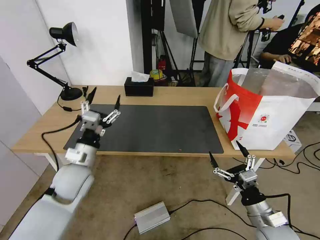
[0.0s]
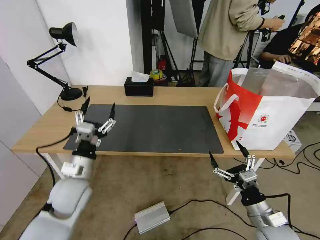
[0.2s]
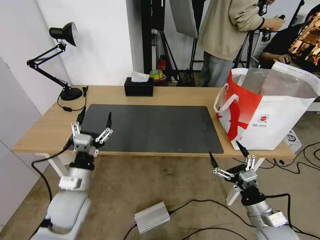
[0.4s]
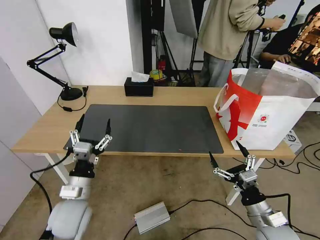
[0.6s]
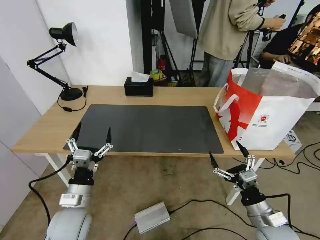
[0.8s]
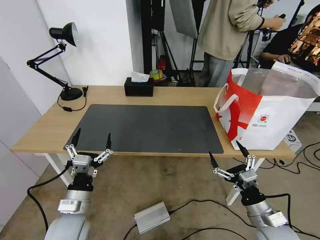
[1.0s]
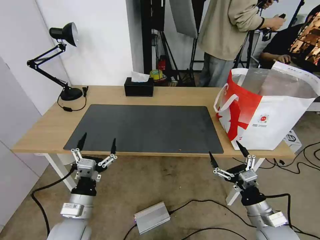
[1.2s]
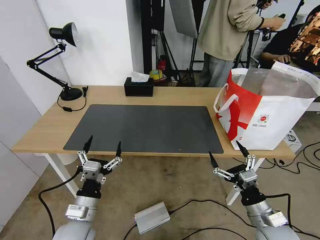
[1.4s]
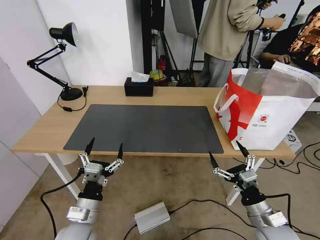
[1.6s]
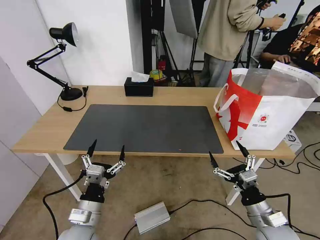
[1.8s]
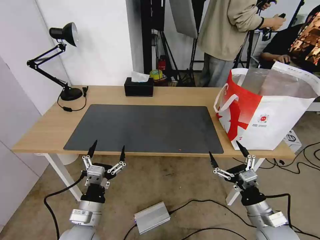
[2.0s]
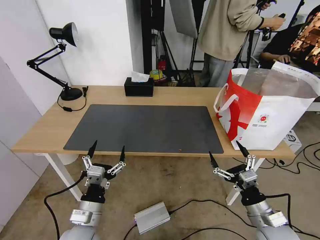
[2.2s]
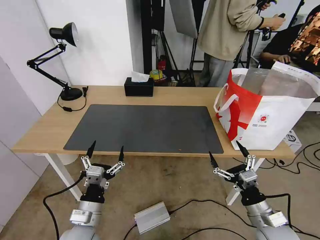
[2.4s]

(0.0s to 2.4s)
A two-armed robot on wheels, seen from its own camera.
Task of the whole recording: Pick up the trash from the table and place it into the takeout bag.
0.0s - 1.2s: The left gripper heads backward and downward, covering some 15 cm.
1.2s - 2.4s: The grippers move only a little.

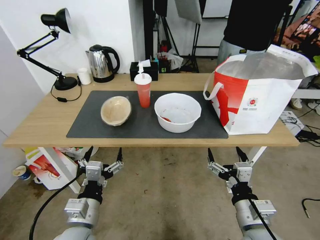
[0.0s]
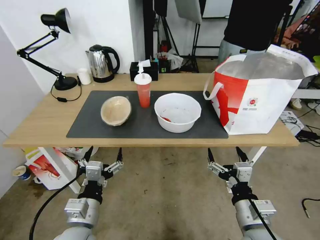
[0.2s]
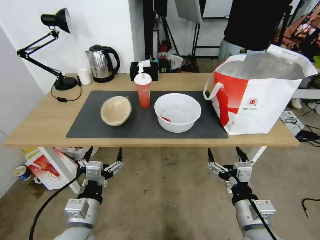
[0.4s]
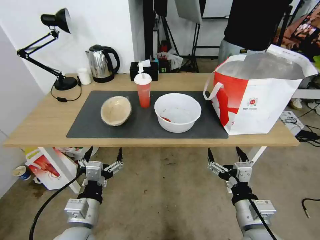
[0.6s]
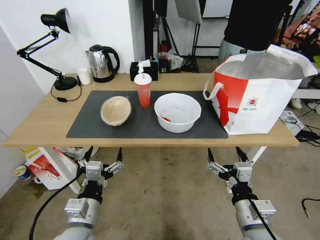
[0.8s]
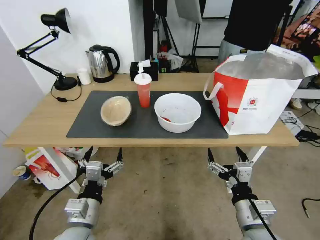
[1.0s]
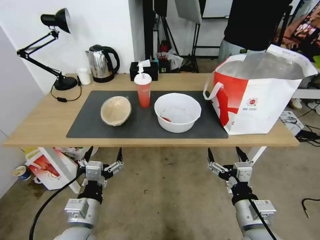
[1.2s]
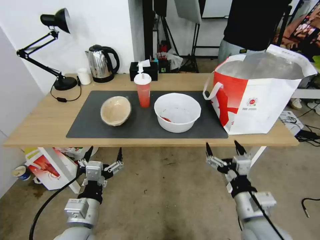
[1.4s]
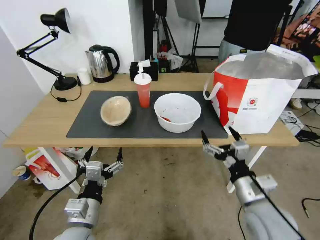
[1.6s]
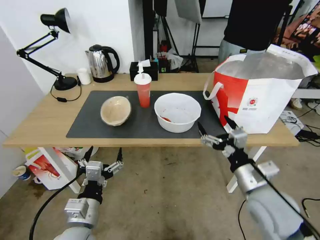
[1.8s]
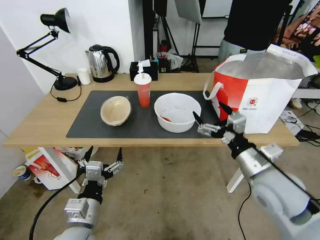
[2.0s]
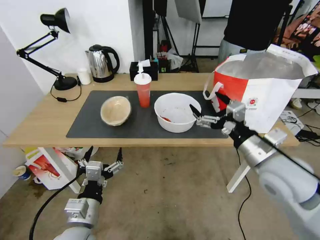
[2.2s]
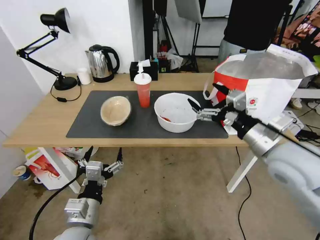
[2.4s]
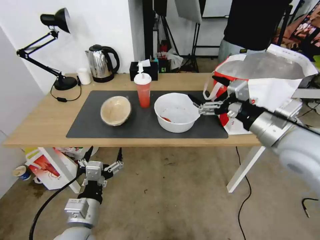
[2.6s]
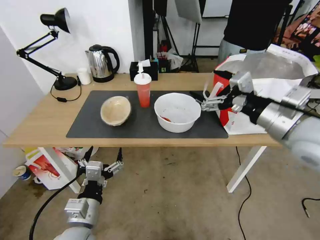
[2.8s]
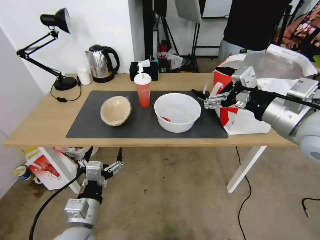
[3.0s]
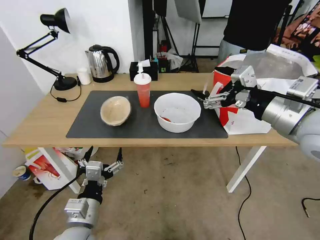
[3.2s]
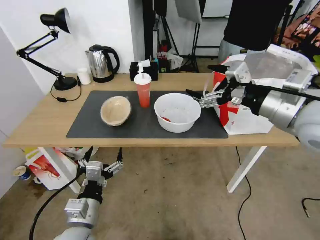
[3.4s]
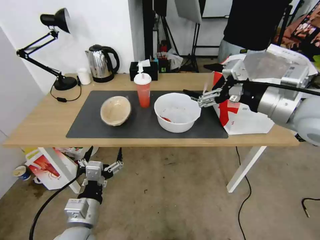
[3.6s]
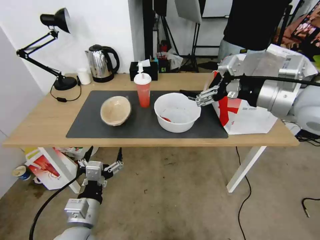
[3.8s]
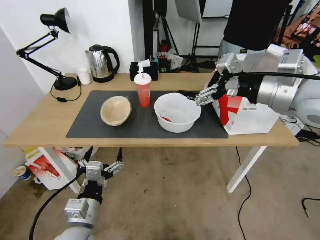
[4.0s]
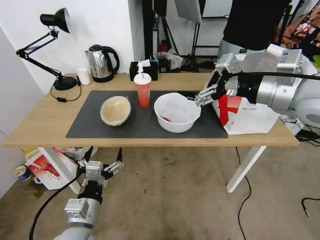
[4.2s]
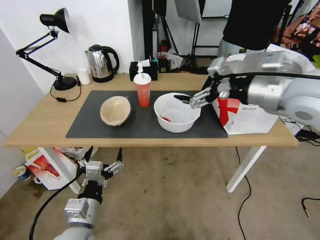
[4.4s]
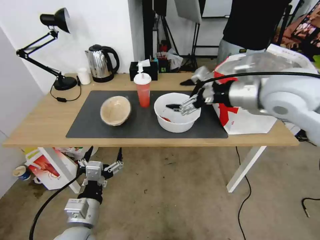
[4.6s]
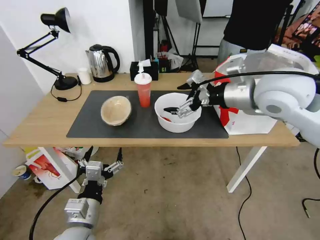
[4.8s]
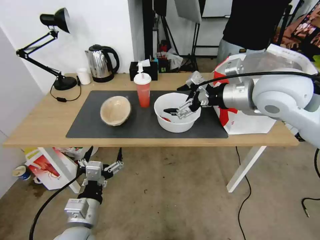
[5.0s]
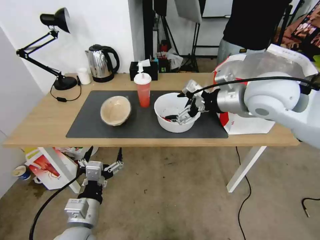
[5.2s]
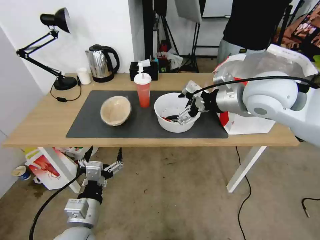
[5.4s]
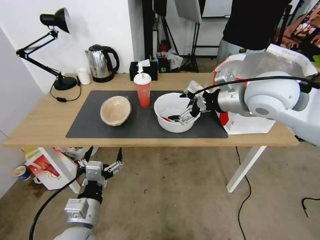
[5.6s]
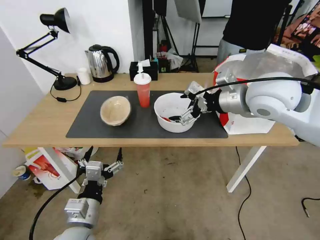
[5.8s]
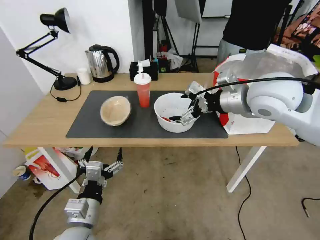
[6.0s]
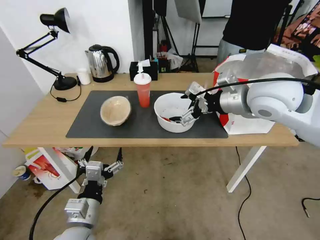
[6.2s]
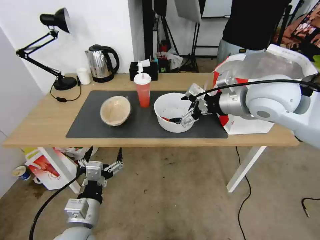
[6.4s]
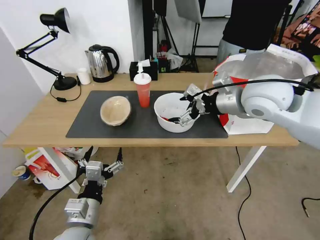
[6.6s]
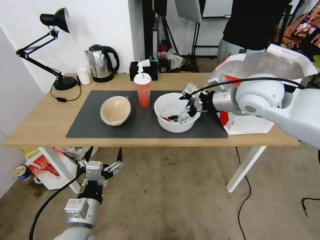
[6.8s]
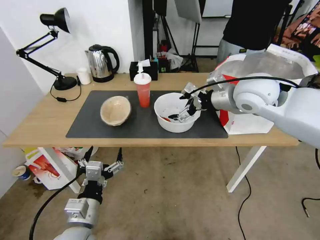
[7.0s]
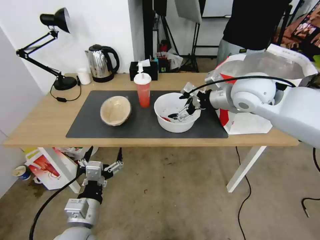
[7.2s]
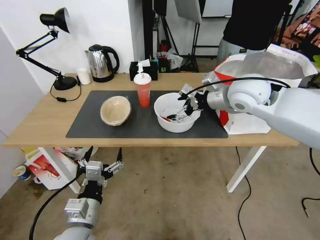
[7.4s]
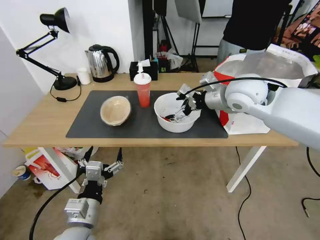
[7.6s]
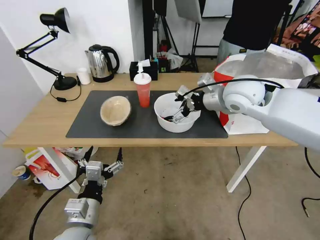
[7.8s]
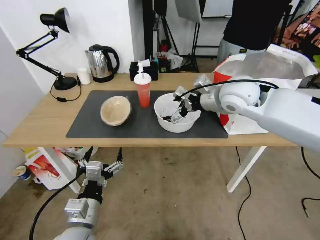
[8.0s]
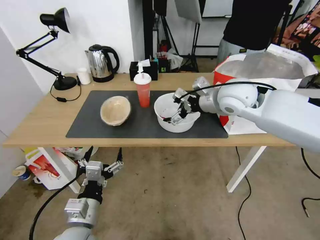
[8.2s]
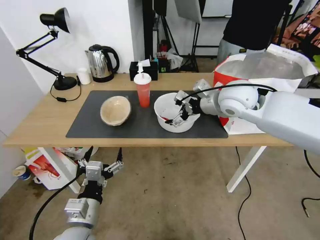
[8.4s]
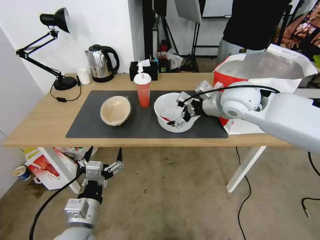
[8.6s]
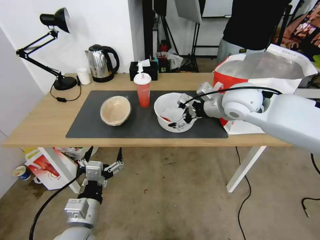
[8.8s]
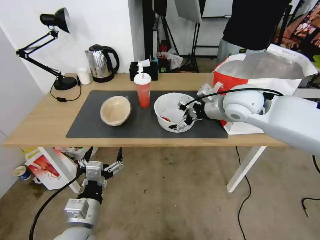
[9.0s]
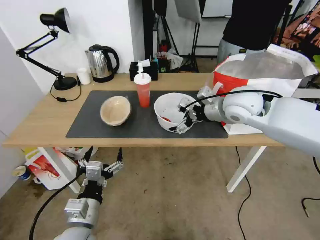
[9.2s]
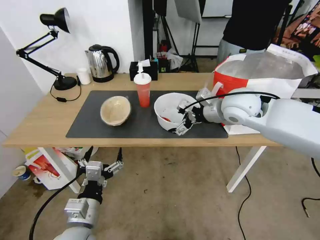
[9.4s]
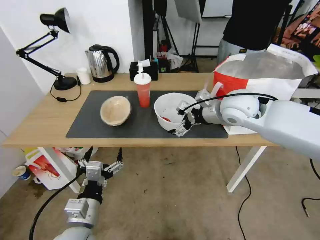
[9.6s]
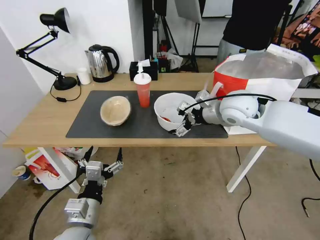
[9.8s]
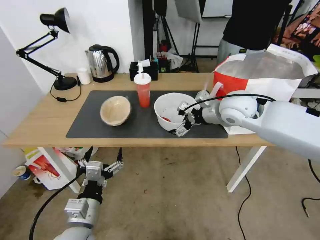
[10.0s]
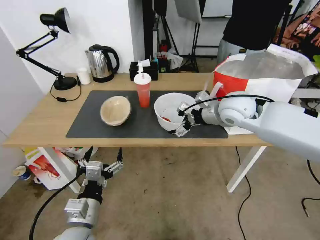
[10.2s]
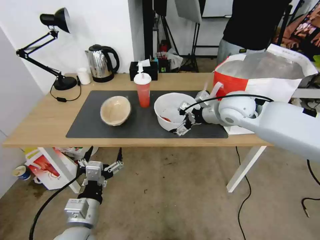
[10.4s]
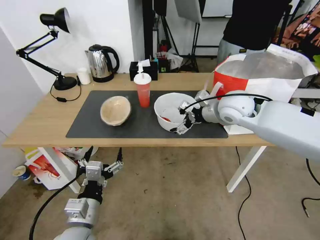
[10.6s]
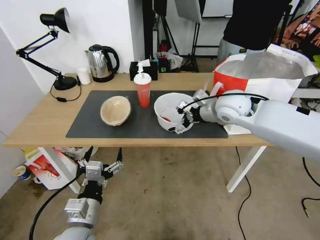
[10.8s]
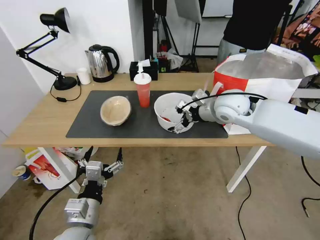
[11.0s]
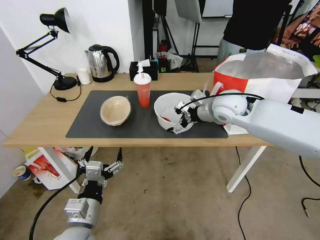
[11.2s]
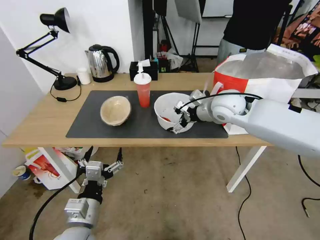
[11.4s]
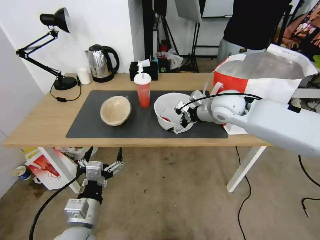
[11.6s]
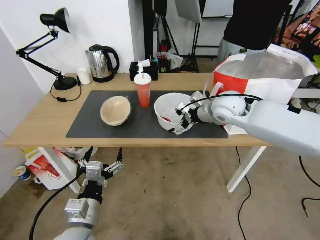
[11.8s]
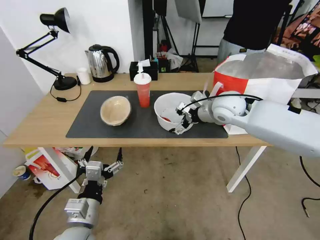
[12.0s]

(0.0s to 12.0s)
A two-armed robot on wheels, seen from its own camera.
Task of the whole recording: Pick up the trash from the table and place it into the takeout bag.
1.6s - 3.0s: The right gripper is displaced upward and forward by some 25 cm.
3.0s - 4.4s: The right gripper shifts some 5 cm forward.
4.4s - 6.0s: The right gripper ends up about 5 cm from where it was.
6.0s - 7.6s: The right gripper is displaced forward by roughly 5 cm.
7.6s - 10.4s: There are only small adjustments of the grippers.
10.4s - 12.0s: The grippers move only a little.

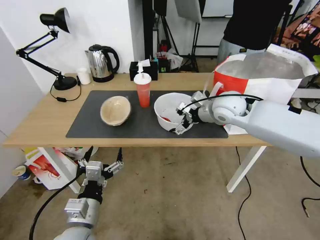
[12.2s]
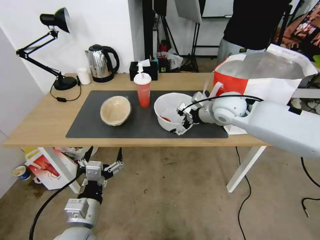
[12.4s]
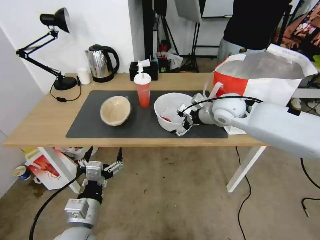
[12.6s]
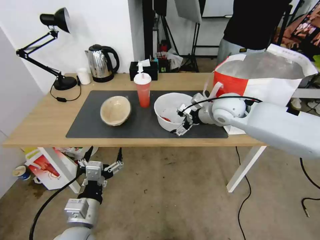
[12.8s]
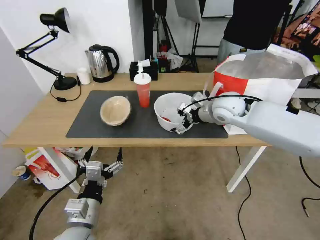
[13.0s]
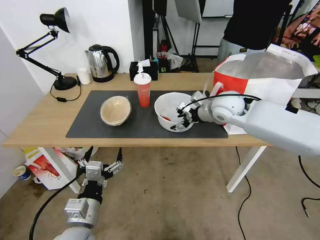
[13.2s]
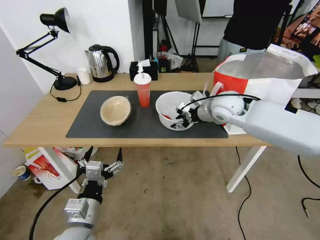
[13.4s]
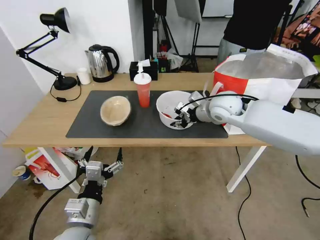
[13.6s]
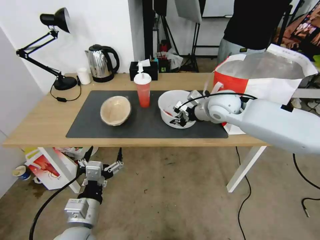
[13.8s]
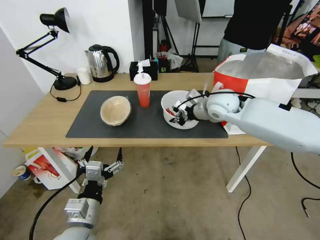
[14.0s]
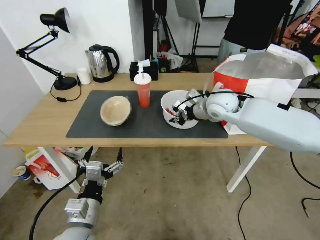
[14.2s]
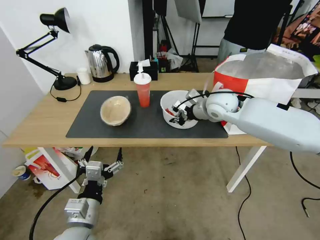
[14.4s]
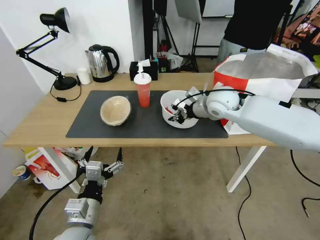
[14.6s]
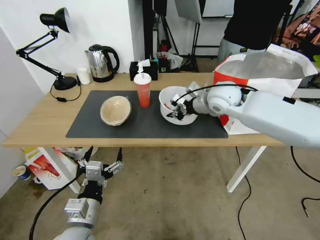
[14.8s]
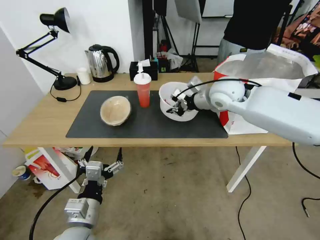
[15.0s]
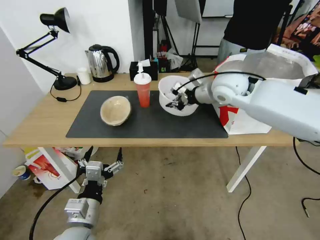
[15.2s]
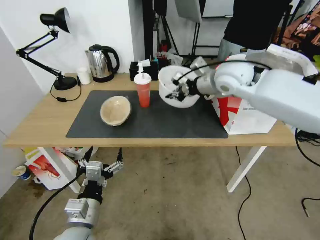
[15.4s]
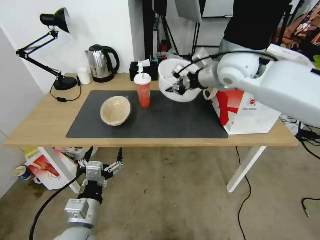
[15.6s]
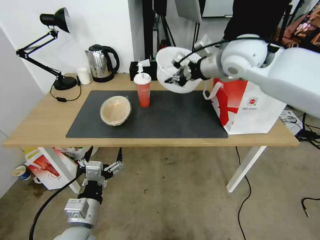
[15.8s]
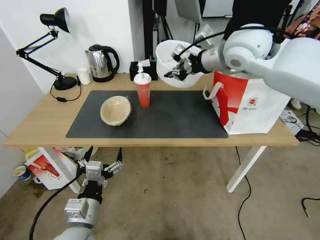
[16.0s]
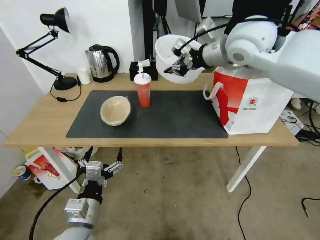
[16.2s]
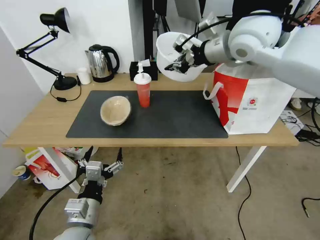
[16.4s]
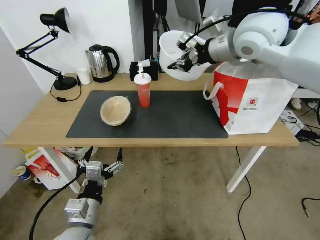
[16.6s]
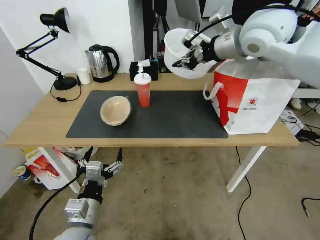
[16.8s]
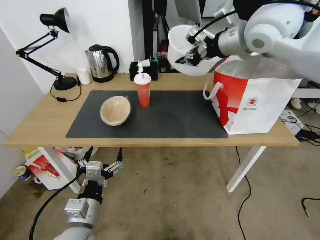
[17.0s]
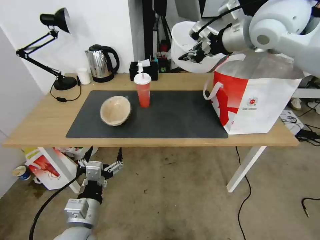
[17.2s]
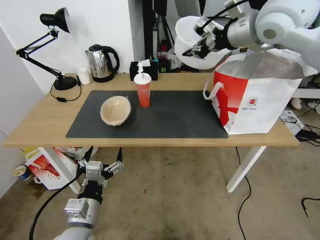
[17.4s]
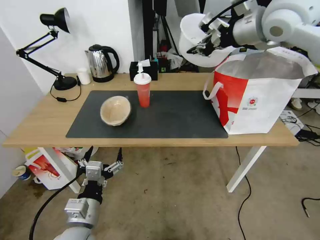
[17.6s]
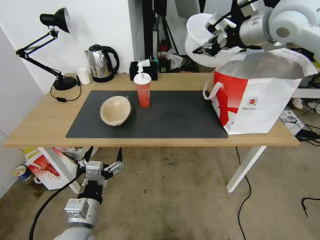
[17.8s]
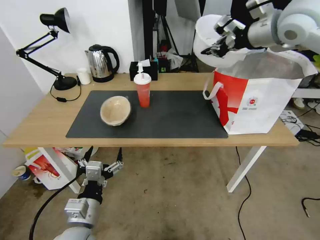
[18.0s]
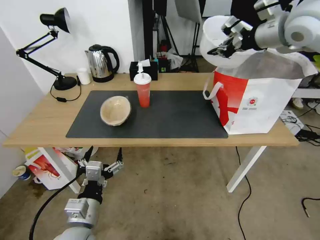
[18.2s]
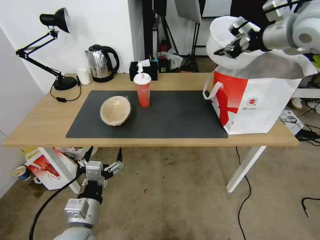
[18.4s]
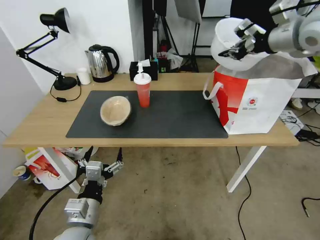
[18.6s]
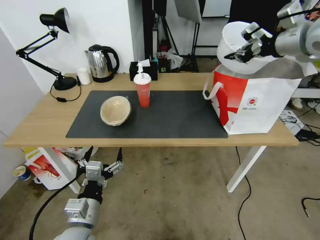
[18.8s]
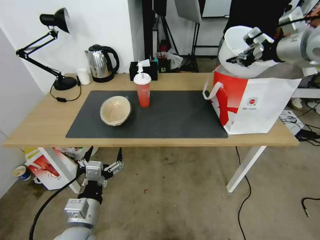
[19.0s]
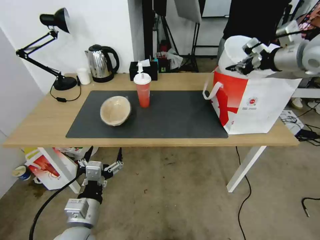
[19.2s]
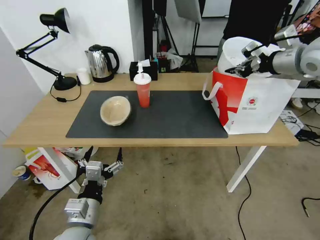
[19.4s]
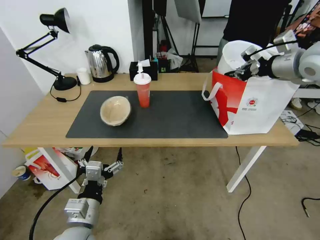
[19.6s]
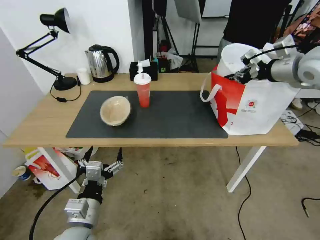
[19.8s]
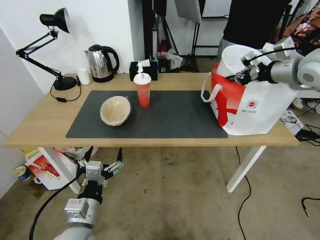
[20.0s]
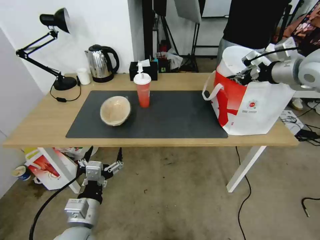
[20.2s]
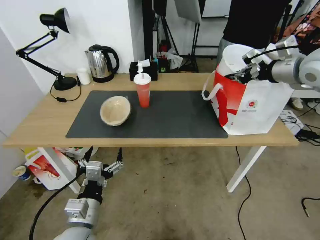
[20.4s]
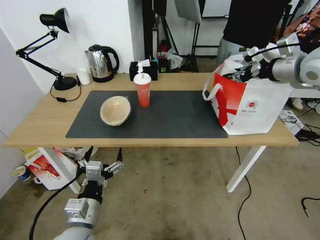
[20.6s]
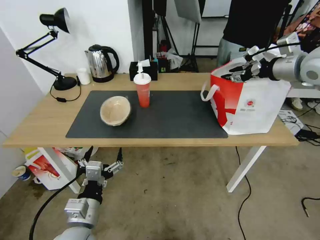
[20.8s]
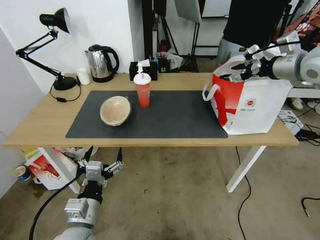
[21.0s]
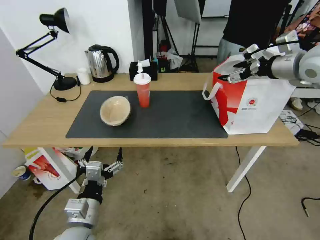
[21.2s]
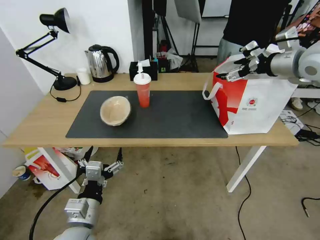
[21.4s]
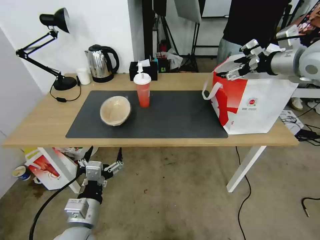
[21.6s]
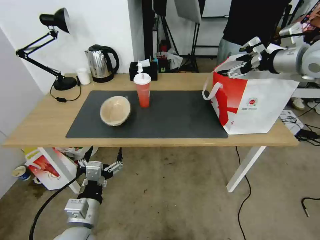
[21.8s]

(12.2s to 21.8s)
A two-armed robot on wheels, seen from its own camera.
Task of the whole recording: Pick up the trash from the table and place it into the takeout bag.
12.2s - 13.8s: The right gripper closes up.
13.8s - 15.4s: The right gripper moves upward, some 10 cm.
15.4s - 17.0s: The right gripper is displaced upward by about 10 cm.
17.0s - 18.6s: The right gripper is displaced to the right by approximately 10 cm.
18.6s - 20.2s: The right gripper travels downward by some 10 cm.
20.2s - 21.8s: The right gripper opens.
